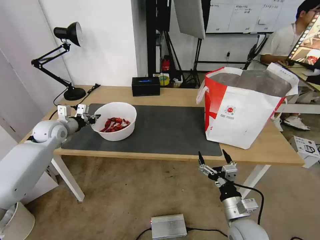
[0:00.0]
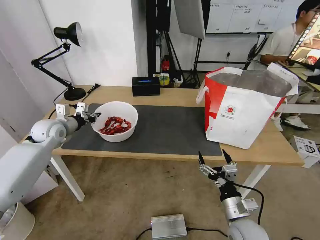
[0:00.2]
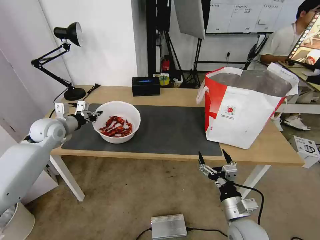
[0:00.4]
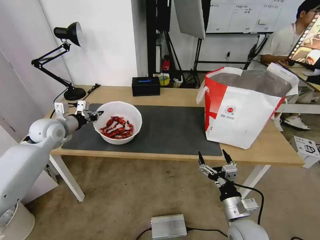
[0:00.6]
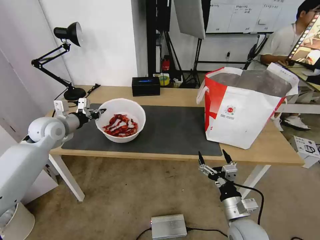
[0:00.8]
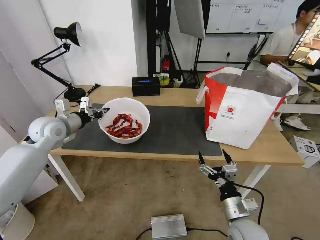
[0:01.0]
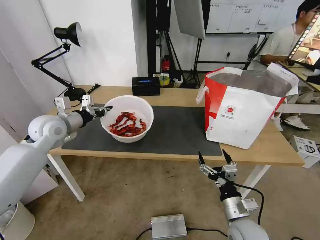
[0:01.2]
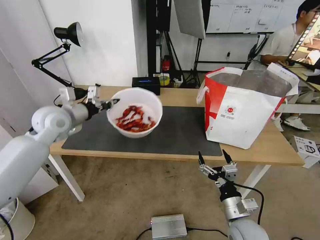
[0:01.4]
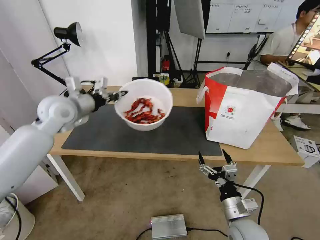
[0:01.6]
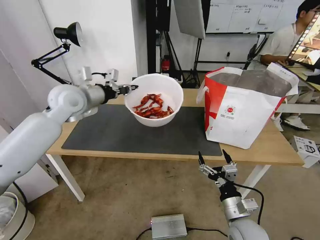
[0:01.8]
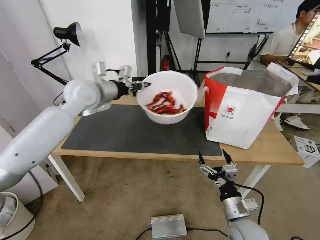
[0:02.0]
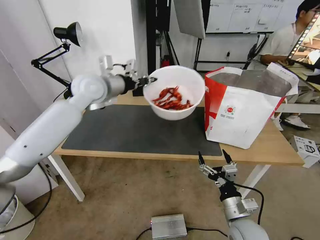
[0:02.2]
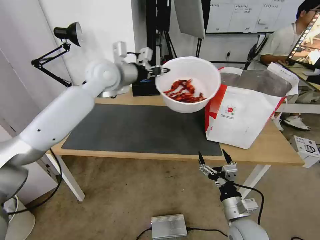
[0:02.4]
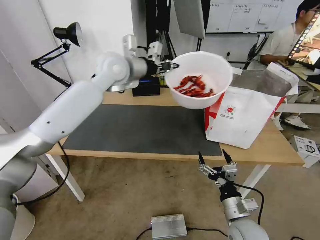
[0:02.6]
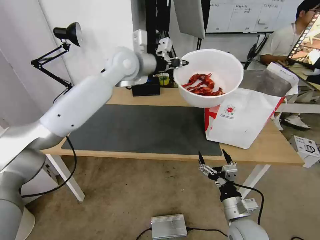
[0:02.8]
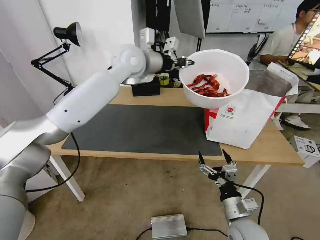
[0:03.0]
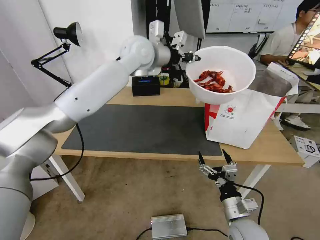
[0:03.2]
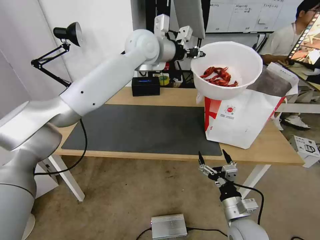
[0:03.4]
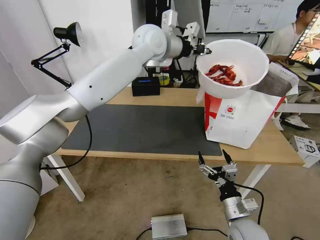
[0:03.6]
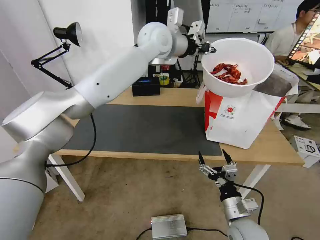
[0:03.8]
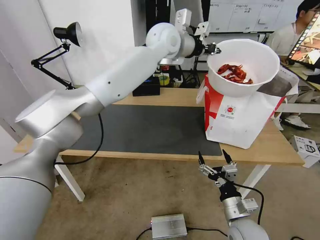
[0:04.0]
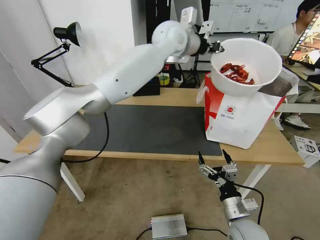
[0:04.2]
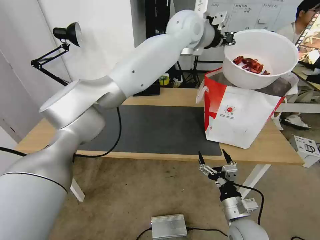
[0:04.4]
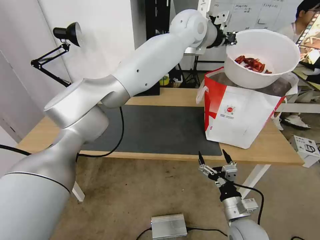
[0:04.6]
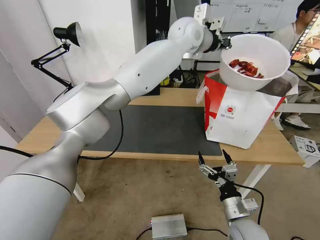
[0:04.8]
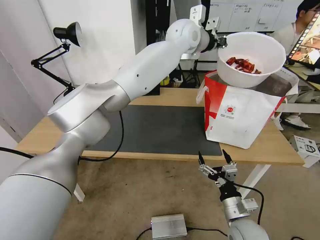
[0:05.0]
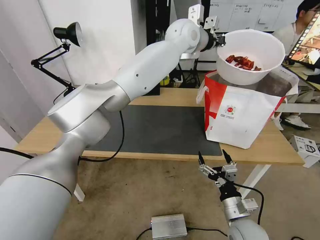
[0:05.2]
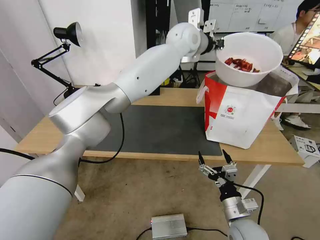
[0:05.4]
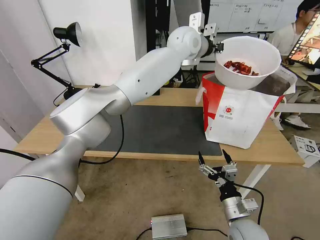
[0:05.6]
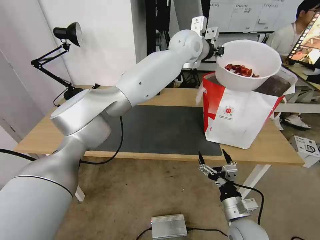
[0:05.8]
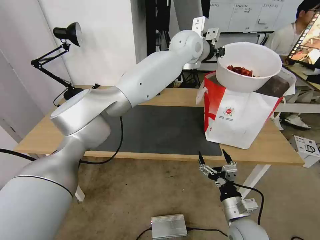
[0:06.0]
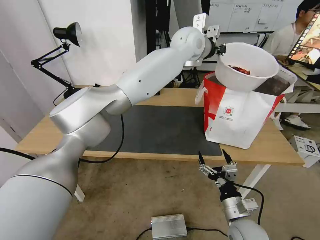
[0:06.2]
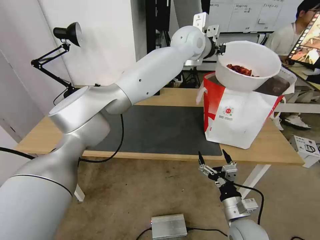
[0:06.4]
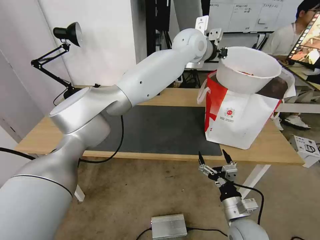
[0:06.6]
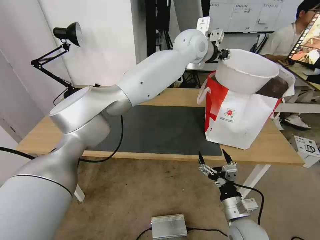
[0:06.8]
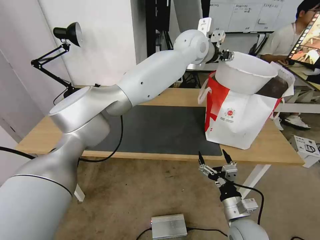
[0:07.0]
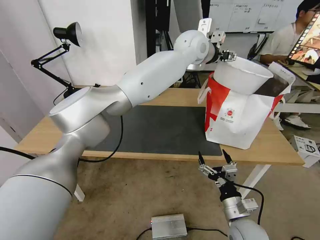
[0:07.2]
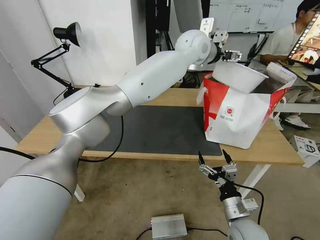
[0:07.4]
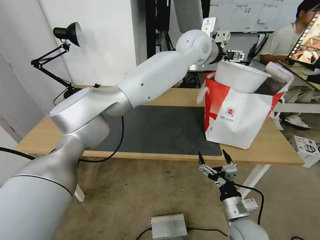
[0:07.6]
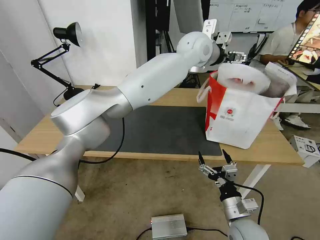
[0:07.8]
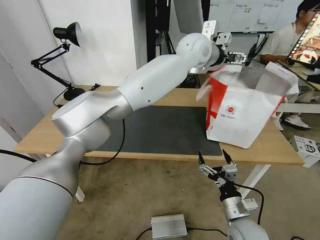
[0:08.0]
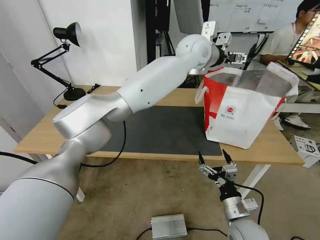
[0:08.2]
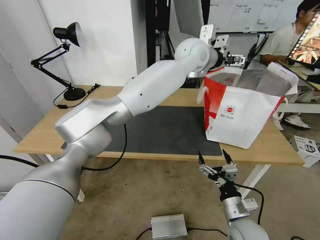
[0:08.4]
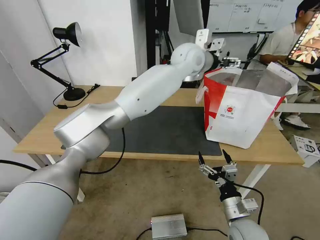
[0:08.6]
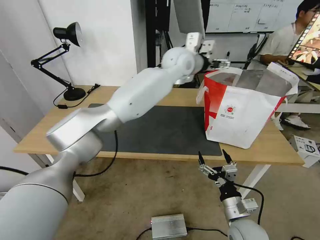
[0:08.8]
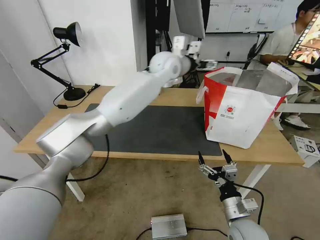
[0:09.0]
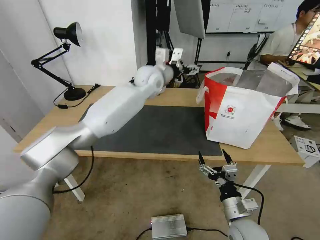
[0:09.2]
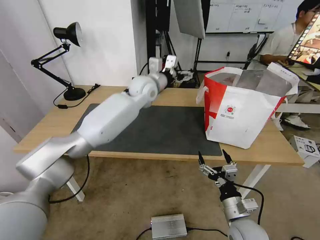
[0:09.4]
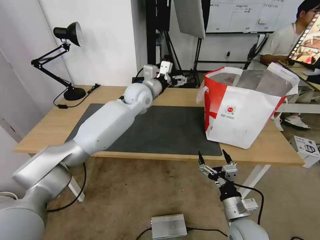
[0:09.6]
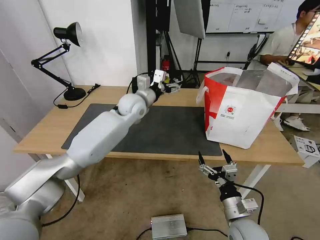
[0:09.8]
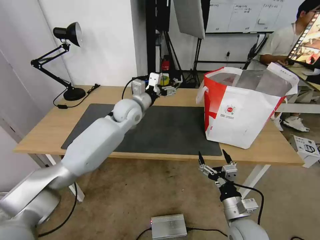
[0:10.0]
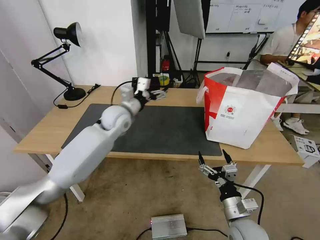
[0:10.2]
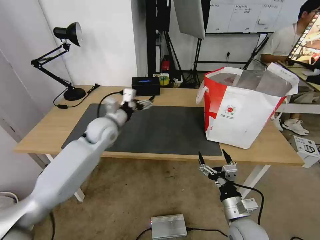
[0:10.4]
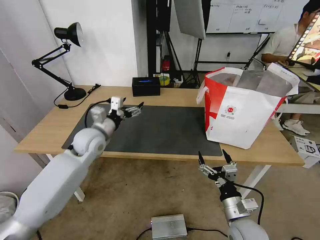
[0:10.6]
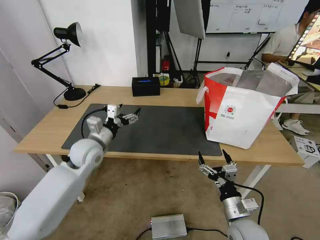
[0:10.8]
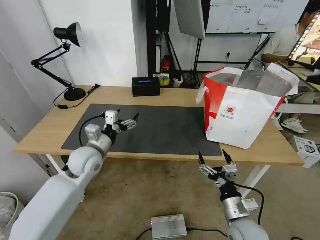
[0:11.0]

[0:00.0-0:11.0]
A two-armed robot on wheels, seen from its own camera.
Task of the whole recording: Pick up the trash from the table and place it into the takeout bag.
0:00.0 to 0:01.6: The left gripper moves upward and to the right, some 15 cm.
0:01.6 to 0:03.2: The left gripper moves to the right, upward and forward, roughly 25 cm.
0:03.2 to 0:04.8: The left gripper is displaced to the right by roughly 15 cm.
0:04.8 to 0:06.2: The grippers move only a little.
0:06.2 to 0:07.8: The left gripper opens.
0:07.8 to 0:09.4: The left gripper heads to the left and downward, covering approximately 20 cm.
0:09.4 to 0:11.0: The left gripper heads backward, to the left and downward, covering some 30 cm.

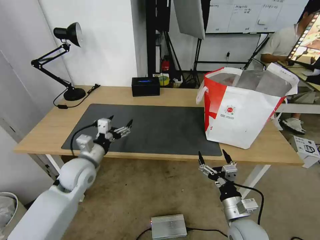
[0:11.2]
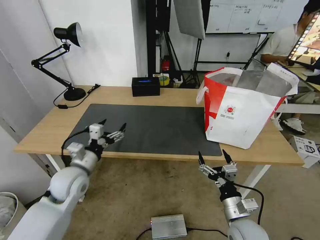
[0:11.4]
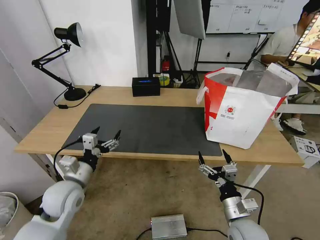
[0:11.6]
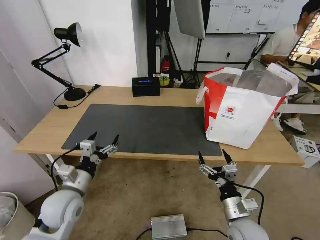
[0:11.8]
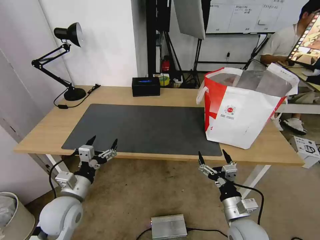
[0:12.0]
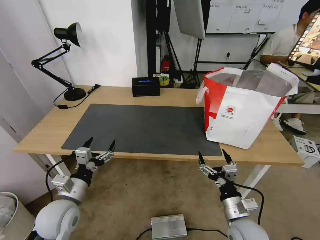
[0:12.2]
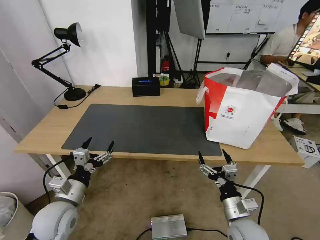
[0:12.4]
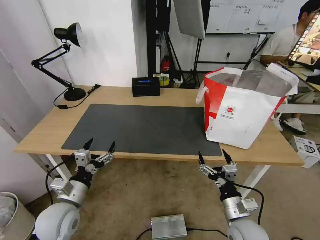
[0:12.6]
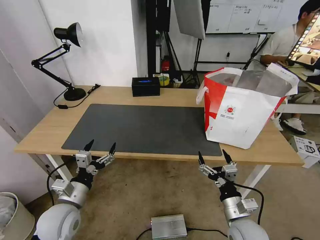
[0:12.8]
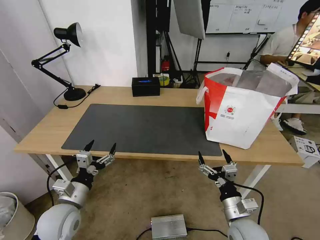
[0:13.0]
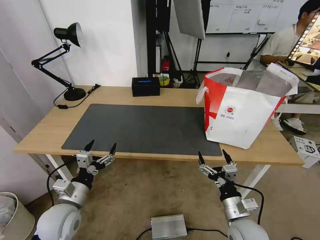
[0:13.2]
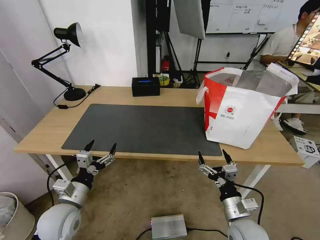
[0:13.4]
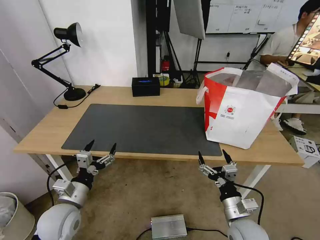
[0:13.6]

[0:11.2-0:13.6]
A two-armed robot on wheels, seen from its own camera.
Task of the whole recording: Pick up the trash from the table and place it into the takeout bag.
0:11.2 to 0:12.4: The left gripper moves backward, some 10 cm.
0:12.4 to 0:13.6: Both grippers stay about where they are.

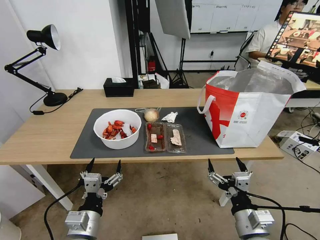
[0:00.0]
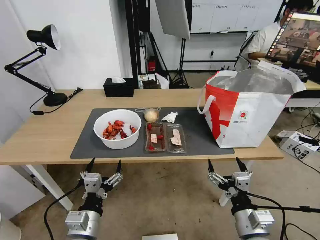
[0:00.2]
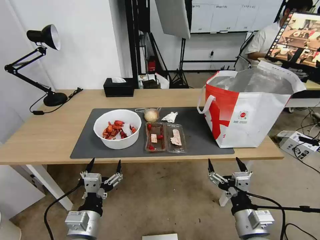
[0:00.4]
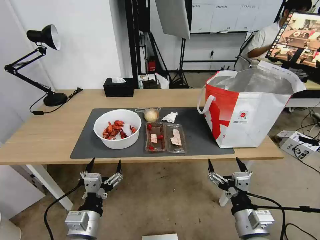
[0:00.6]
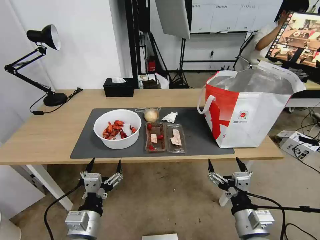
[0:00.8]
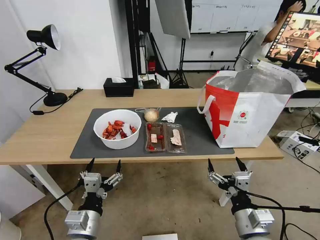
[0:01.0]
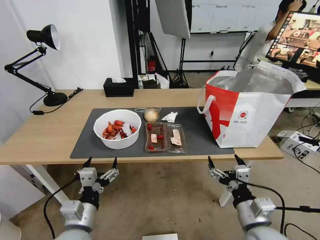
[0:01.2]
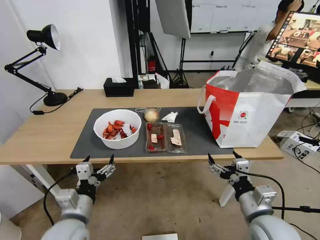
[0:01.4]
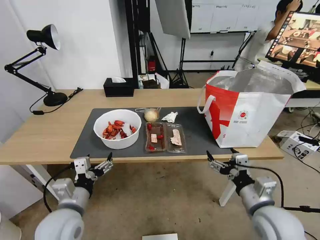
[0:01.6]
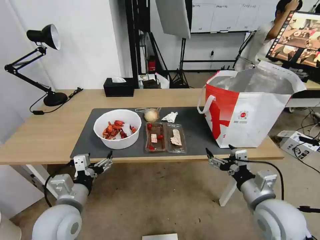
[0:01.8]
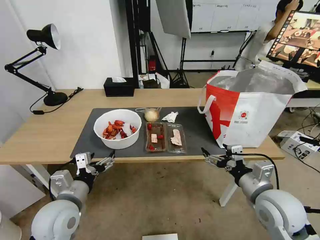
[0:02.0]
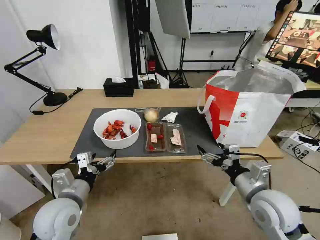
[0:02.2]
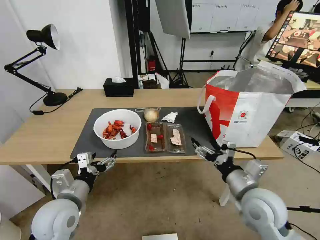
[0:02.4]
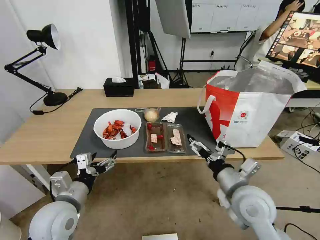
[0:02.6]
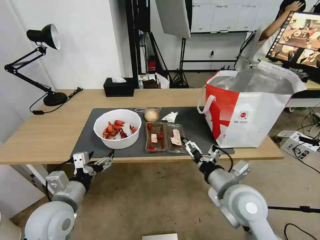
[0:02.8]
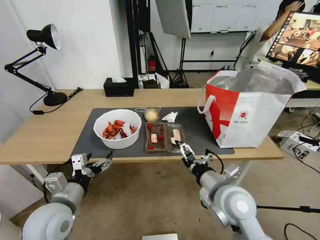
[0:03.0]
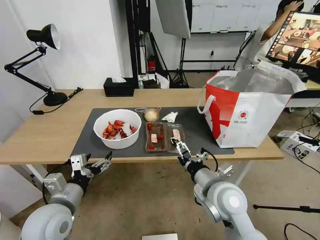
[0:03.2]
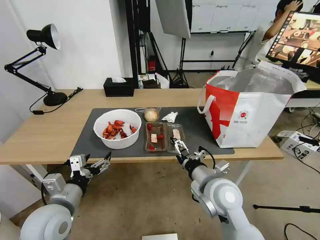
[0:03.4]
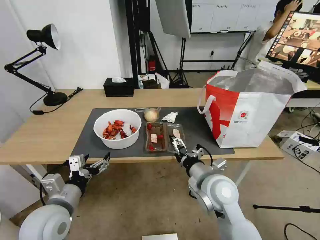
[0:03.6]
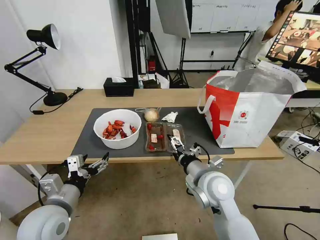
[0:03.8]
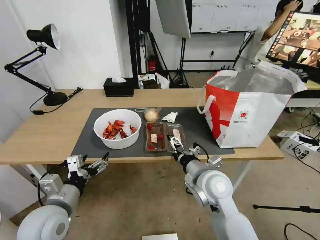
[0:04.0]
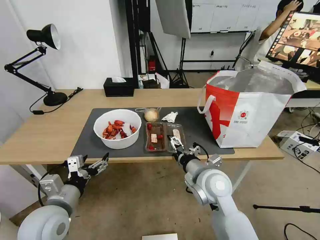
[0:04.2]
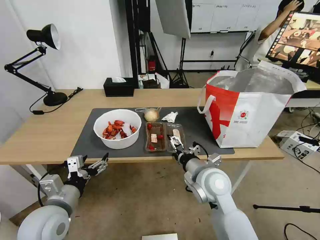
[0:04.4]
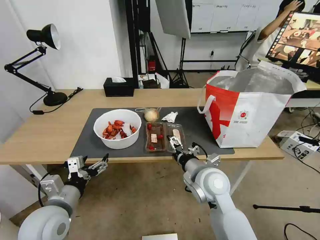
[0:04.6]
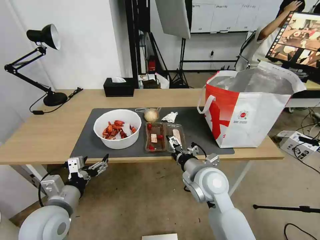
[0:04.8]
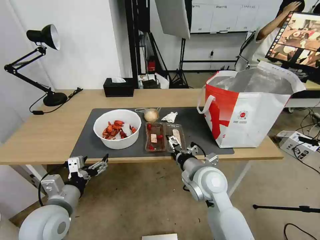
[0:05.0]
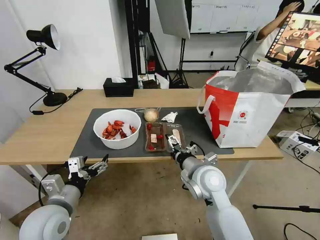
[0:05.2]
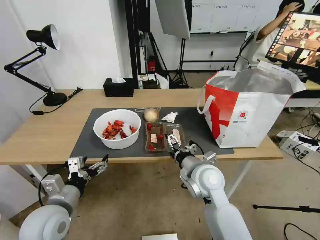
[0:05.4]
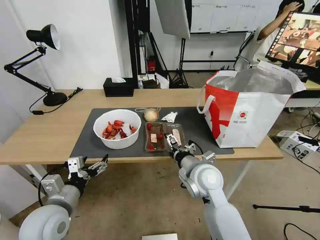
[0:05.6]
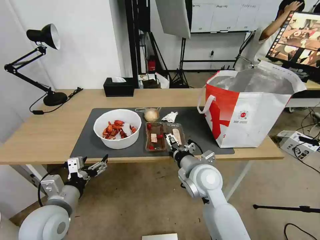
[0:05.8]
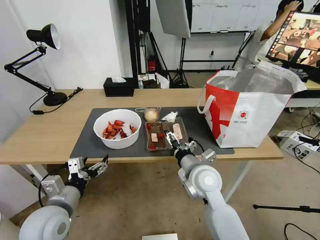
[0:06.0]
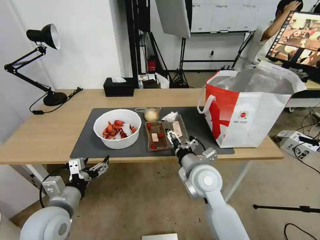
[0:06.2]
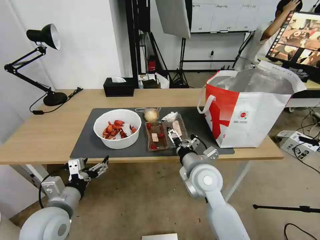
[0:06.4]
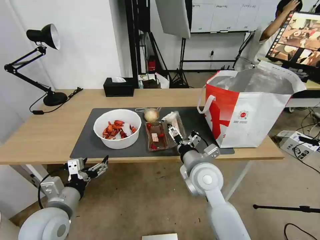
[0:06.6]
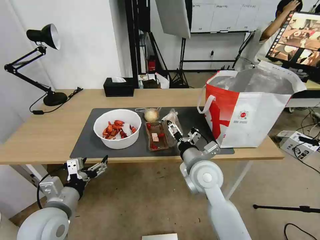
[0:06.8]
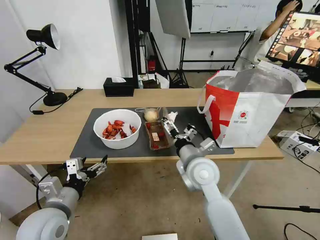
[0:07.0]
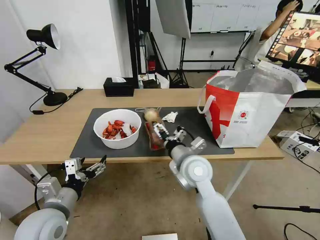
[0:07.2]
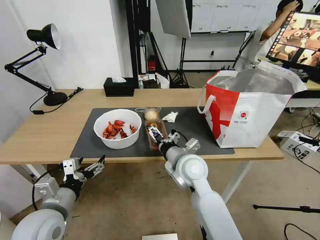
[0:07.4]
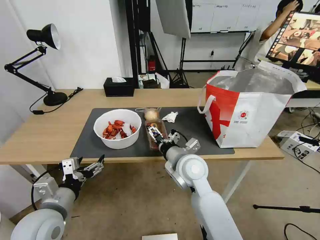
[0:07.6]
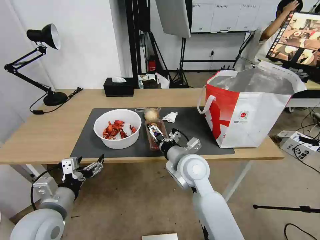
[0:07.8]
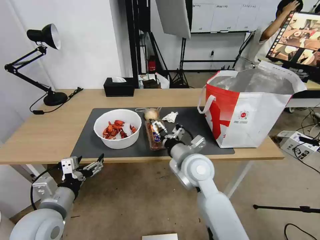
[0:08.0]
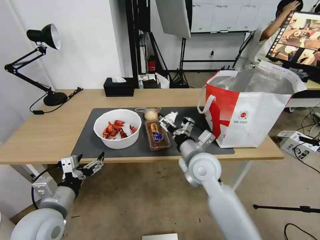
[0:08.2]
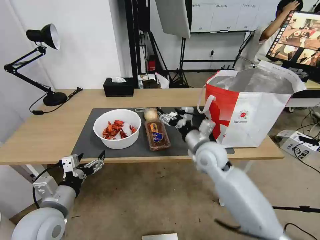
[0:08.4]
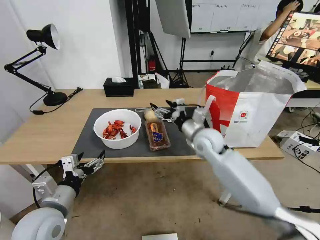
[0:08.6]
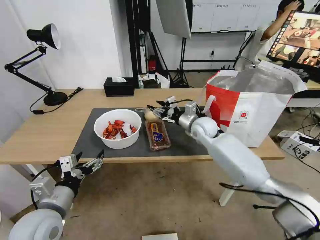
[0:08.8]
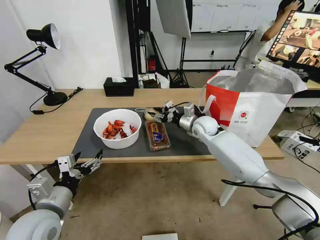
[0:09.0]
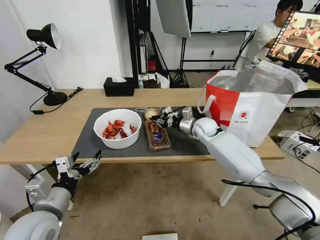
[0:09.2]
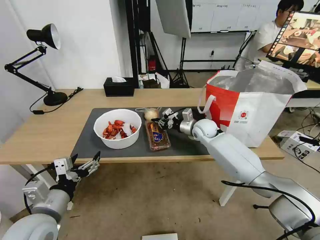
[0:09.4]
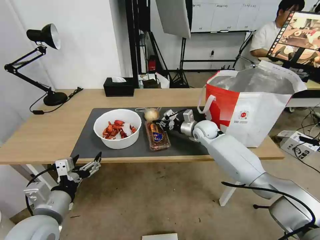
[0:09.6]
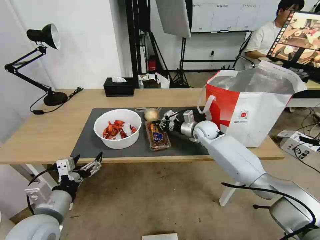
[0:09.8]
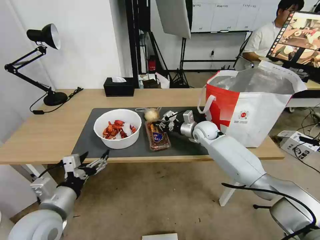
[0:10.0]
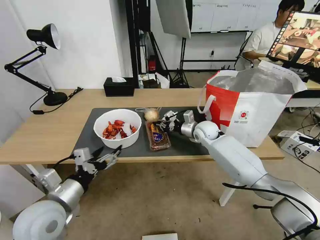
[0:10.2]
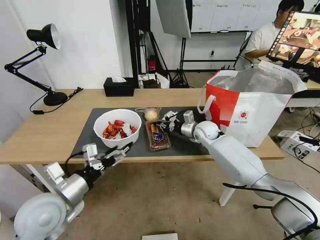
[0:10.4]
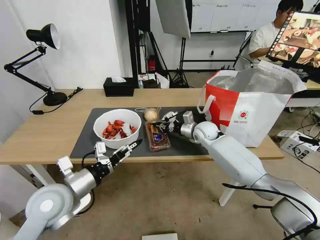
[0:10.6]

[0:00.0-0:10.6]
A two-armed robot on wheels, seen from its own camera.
Task of the whole recording: Pick up the trash from the table and place it into the takeout bag.
0:01.6 to 0:03.0: The right gripper travels to the left by approximately 10 cm.
0:03.0 to 0:04.6: The right gripper heads forward, covering about 5 cm.
0:04.6 to 0:06.0: The grippers move only a little.
0:06.0 to 0:07.6: The grippers stay close to where they were, moving slightly.
0:07.6 to 0:09.0: The right gripper is displaced forward and to the right by approximately 20 cm, and closes.
0:09.0 to 0:10.6: The right gripper closes up, while the left gripper shifts by some 5 cm.
